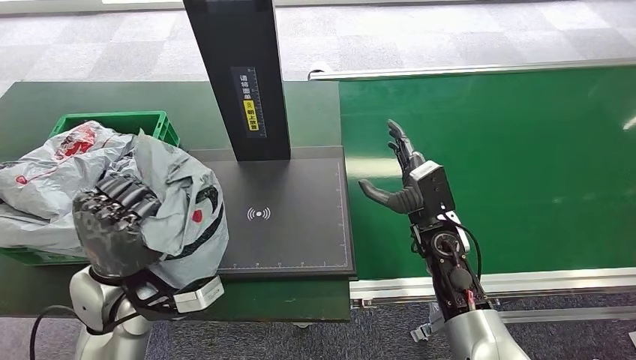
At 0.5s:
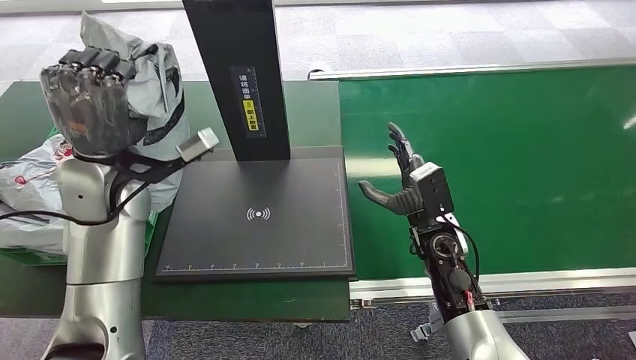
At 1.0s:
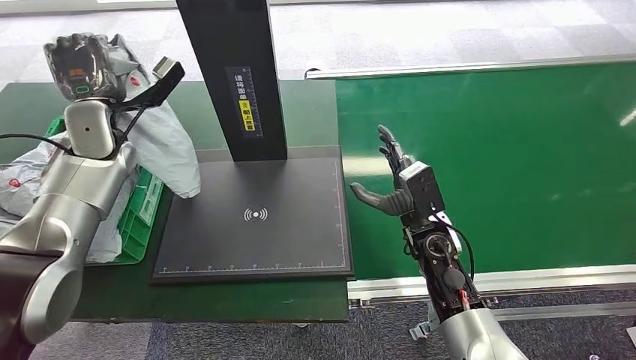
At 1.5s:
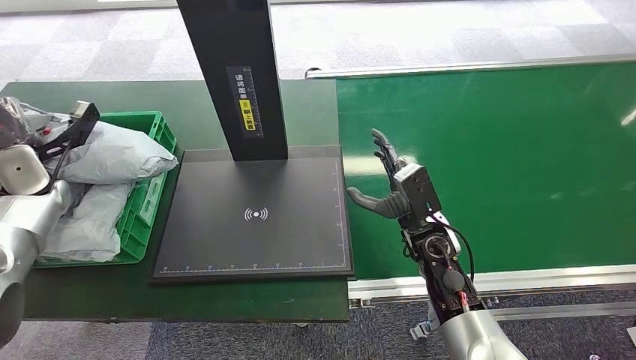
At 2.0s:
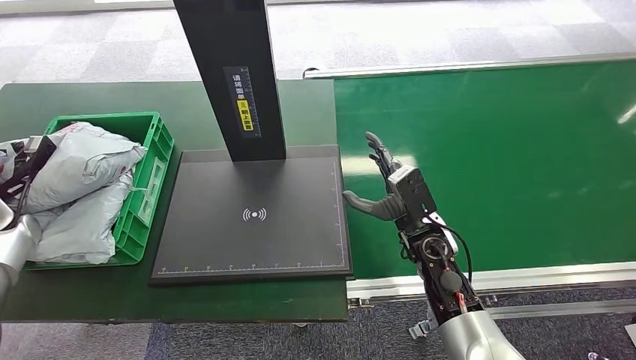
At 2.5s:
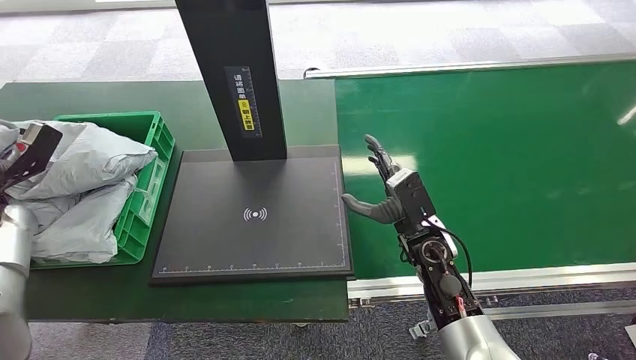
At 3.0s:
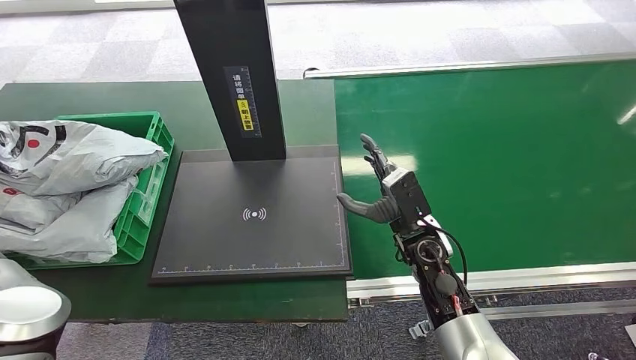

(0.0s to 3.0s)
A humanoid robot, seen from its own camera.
Step, 1.0s - 3.0s: Place the package into the parcel locker.
1.5s - 3.0s: The left hand goes about 15 cm backward and to the left.

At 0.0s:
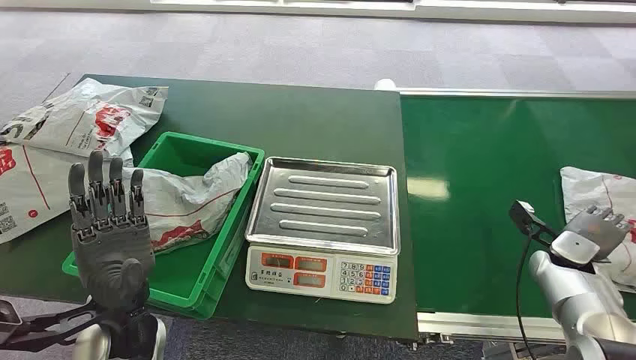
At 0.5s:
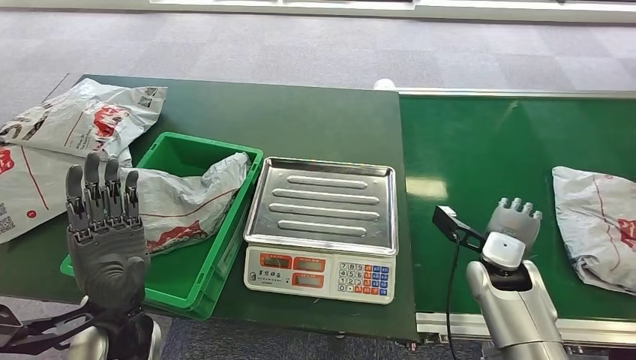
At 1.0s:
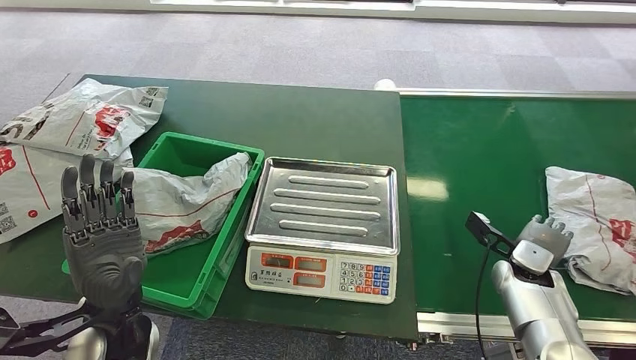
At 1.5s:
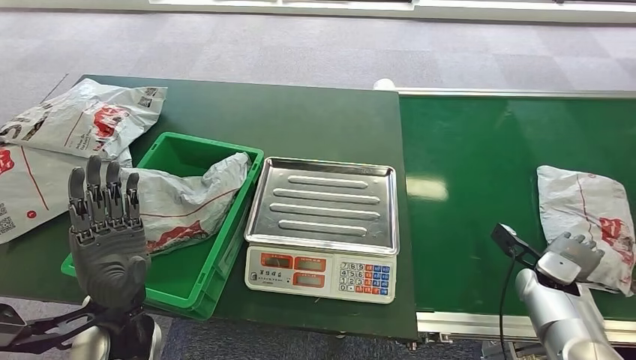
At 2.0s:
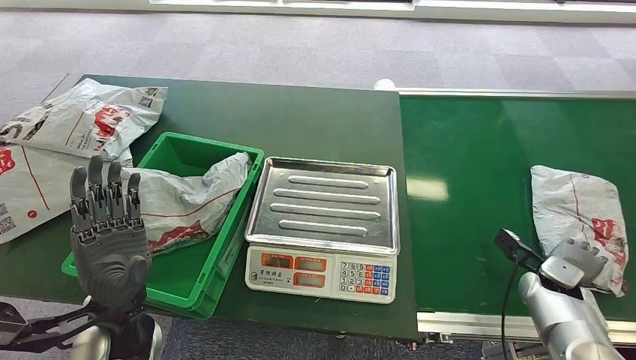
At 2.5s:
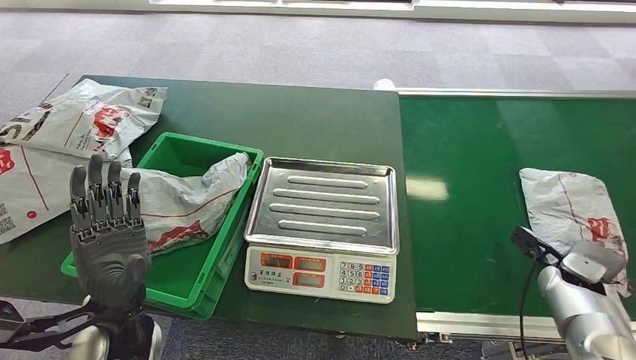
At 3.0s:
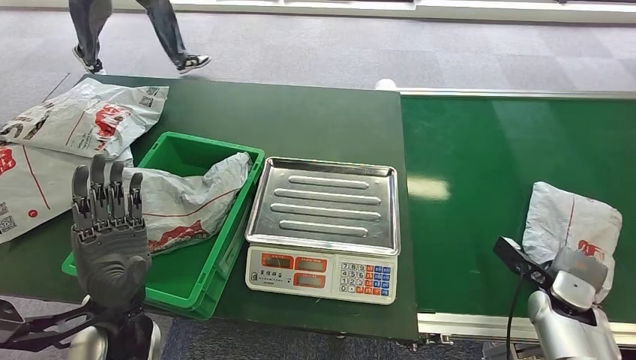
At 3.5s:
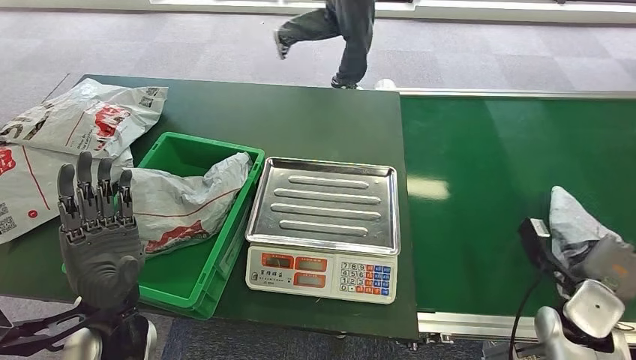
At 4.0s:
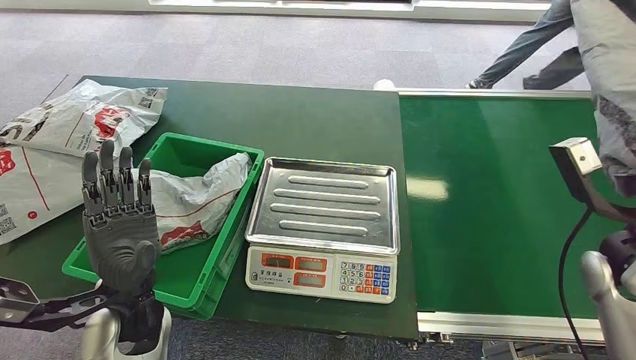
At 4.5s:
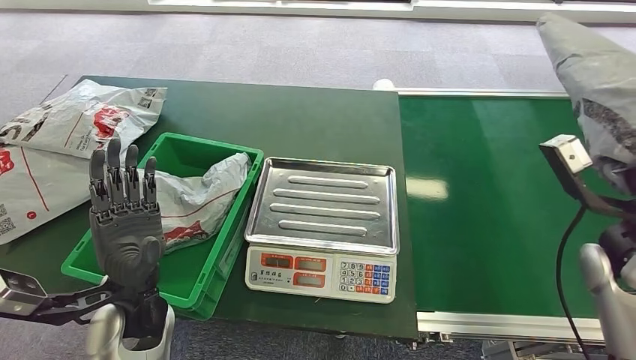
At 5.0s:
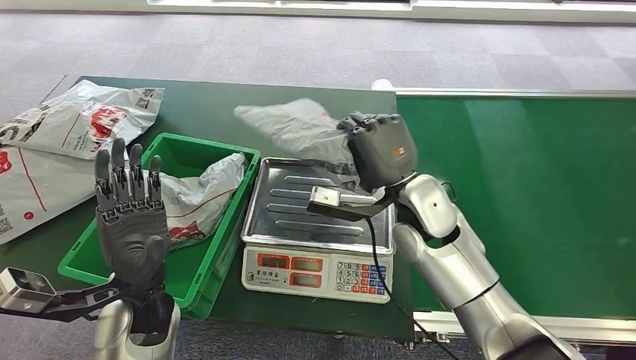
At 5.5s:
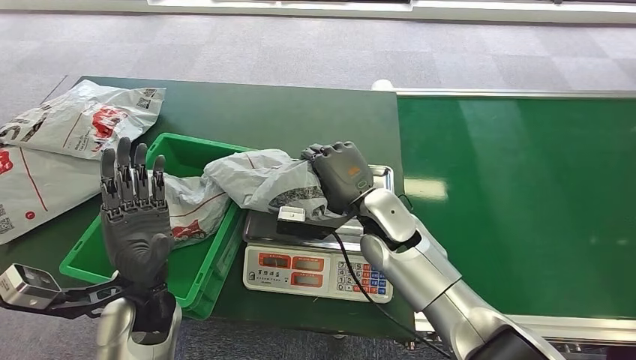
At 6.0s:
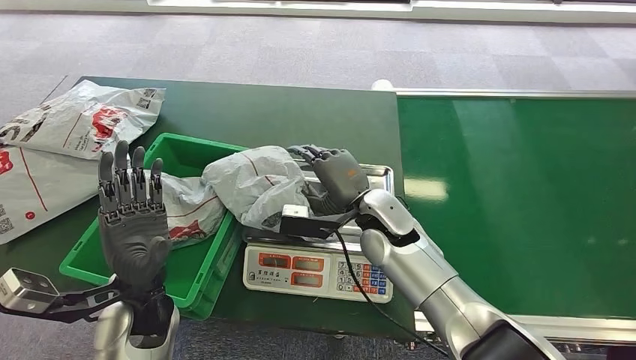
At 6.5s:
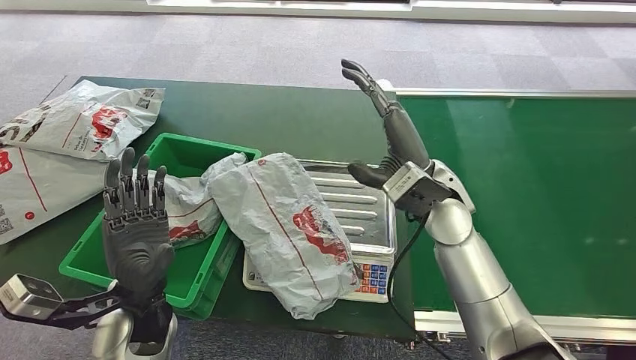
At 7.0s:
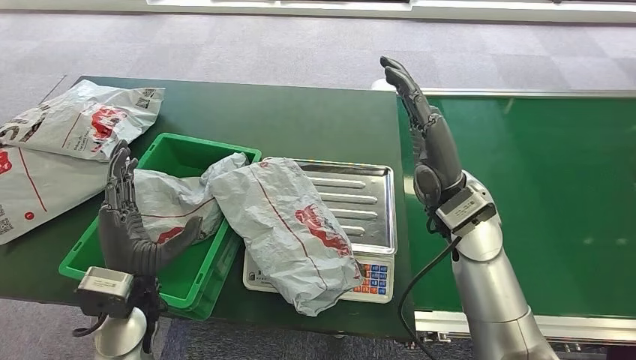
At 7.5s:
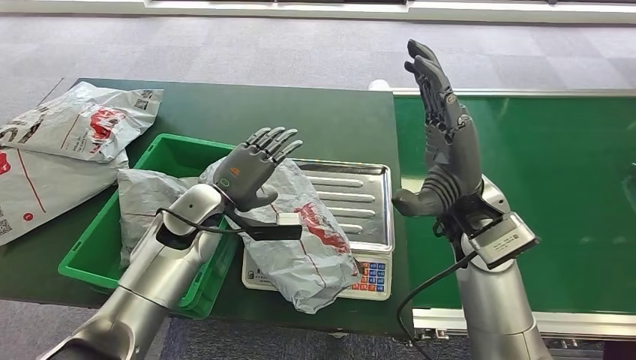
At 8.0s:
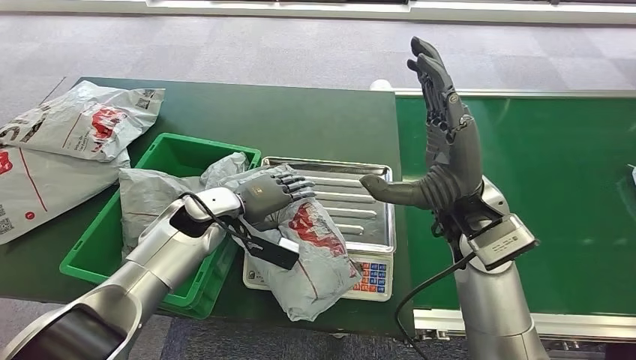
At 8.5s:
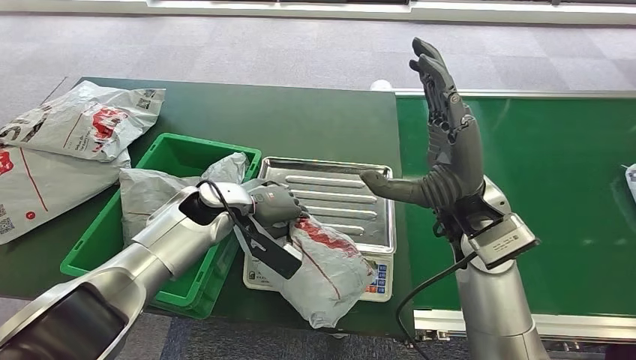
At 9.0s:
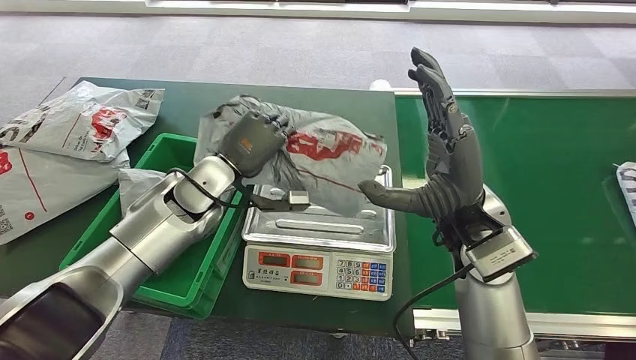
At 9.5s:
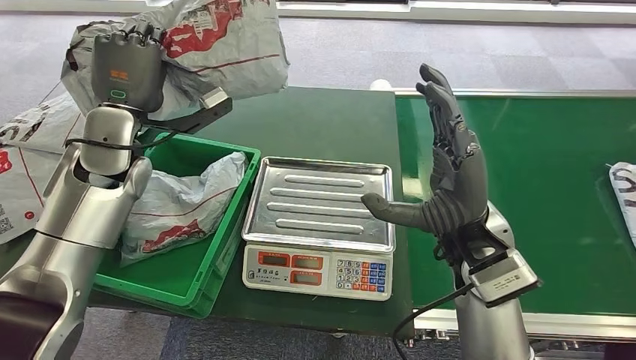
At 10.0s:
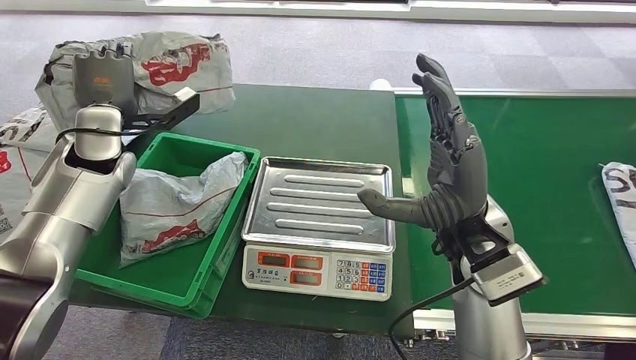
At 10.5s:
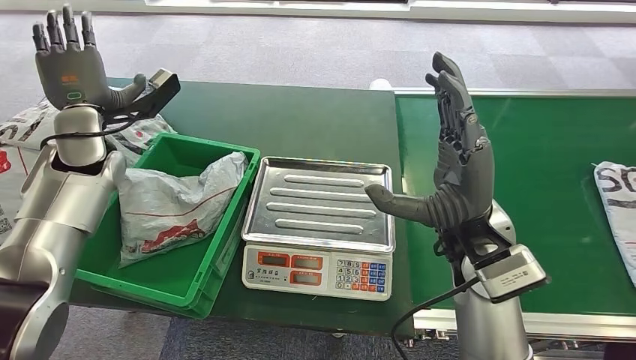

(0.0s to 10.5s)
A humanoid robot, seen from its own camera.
Step, 0.0s - 4.0s: Pick up the package from the conveyor belt.
Step, 4.5s - 5.5s: Place the package onto the inbound machine.
Step, 6.0s - 9.0s: Pick up the package from the inbound machine.
Step, 9.5s - 10.5s: Place the package into the parcel locker.
2.0s - 4.0s: The right hand travels upward by roughly 20 cm.

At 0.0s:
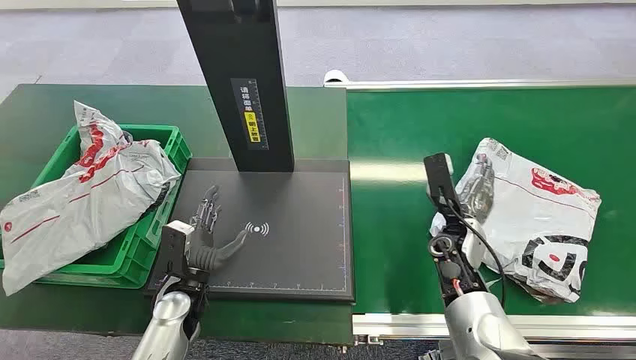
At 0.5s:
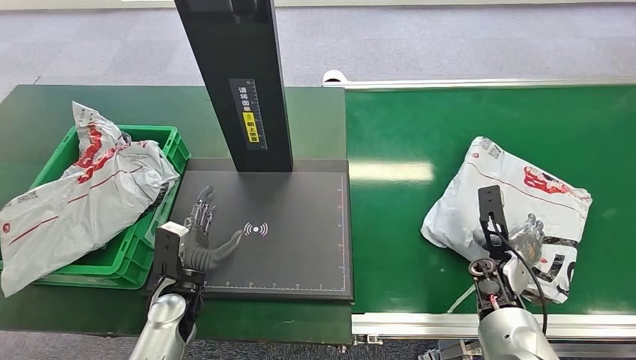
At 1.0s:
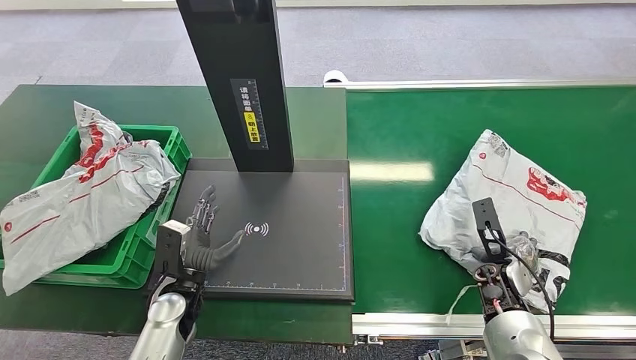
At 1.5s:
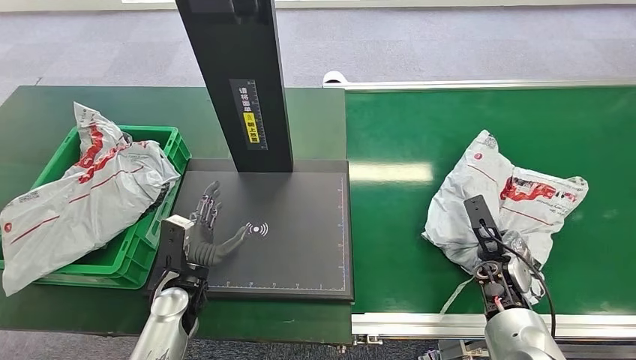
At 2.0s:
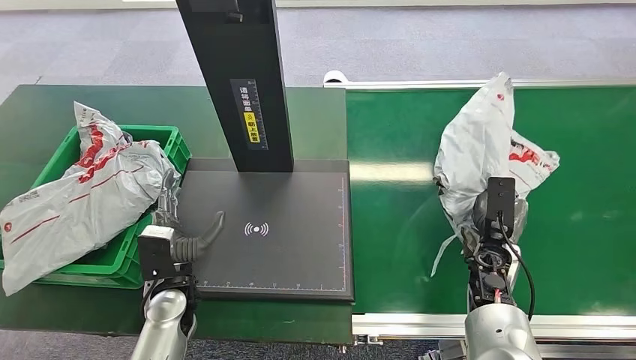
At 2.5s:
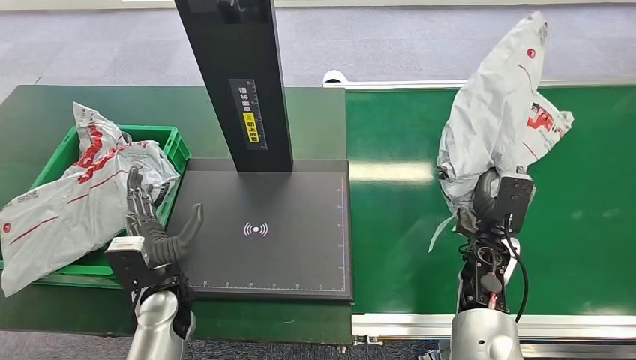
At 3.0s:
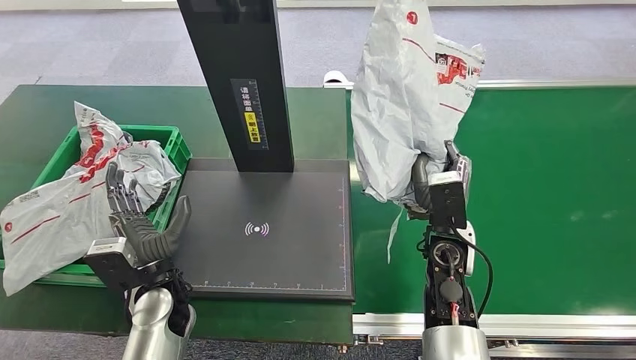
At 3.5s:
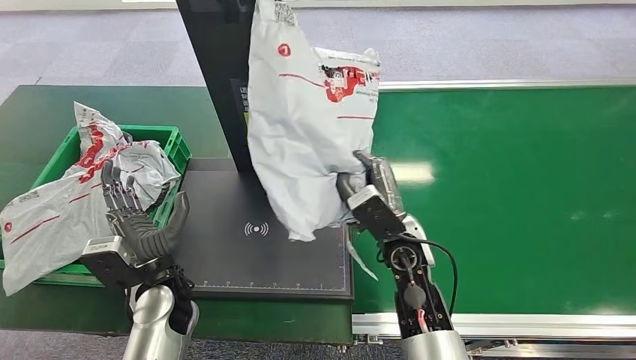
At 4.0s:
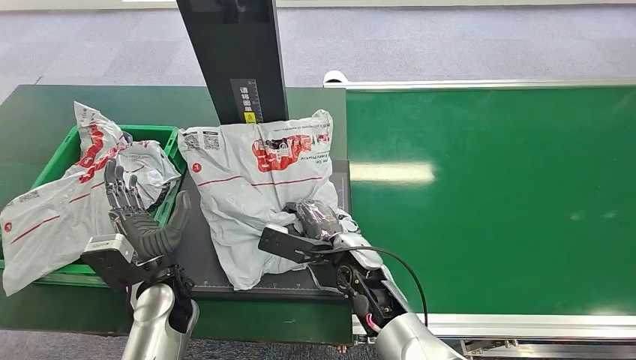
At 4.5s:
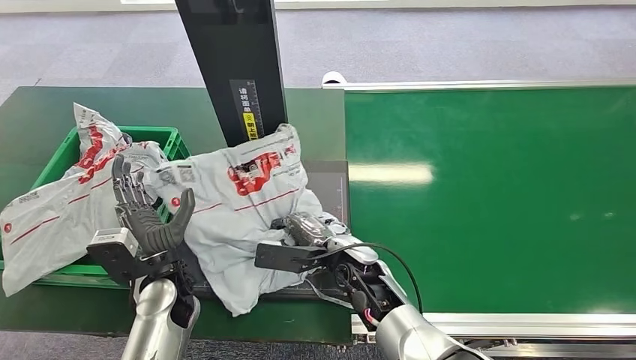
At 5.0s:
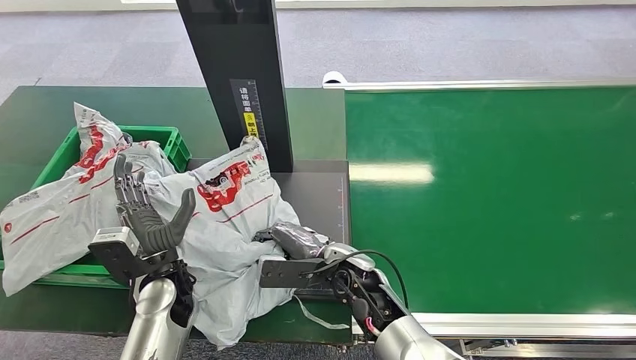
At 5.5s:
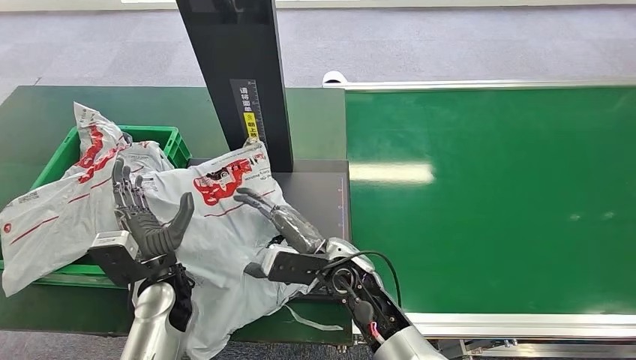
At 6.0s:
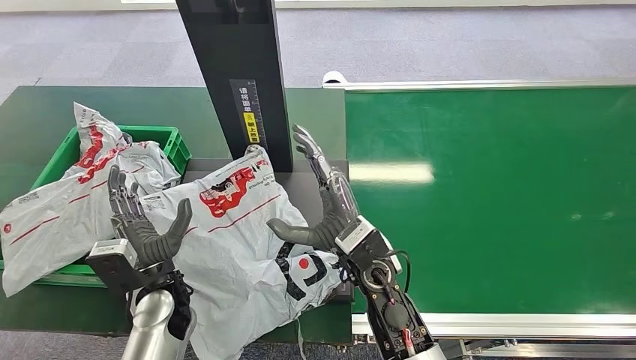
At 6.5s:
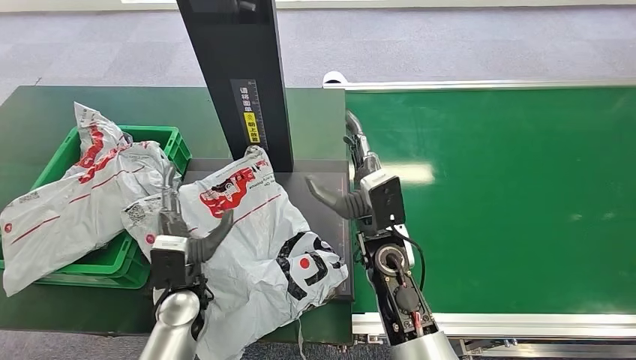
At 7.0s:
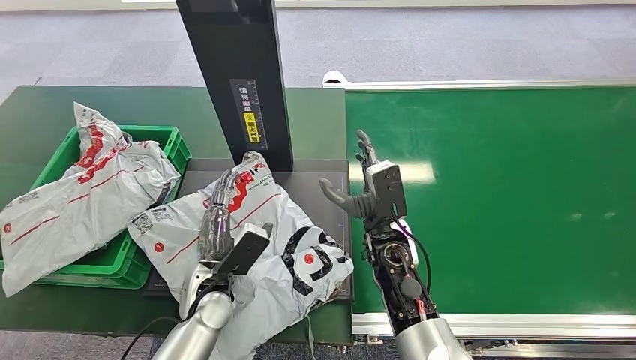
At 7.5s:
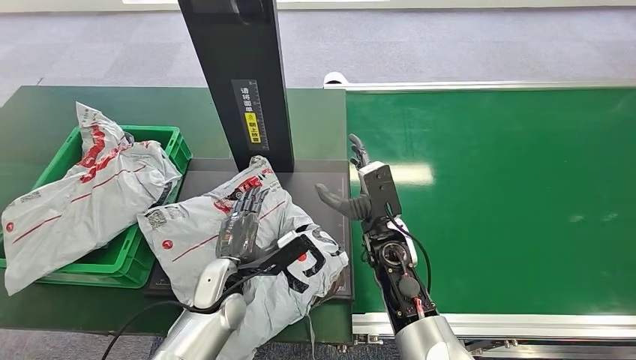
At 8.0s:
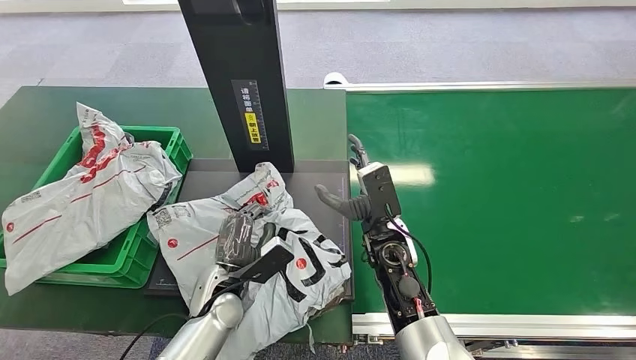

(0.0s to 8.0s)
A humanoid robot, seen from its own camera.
Step, 0.0s - 2.0s: Pick up the package from the conveyor belt.
Step, 2.5s - 5.5s: Place the package onto the inbound machine.
4.0s - 6.0s: The right hand is displaced upward by approximately 5 cm.
